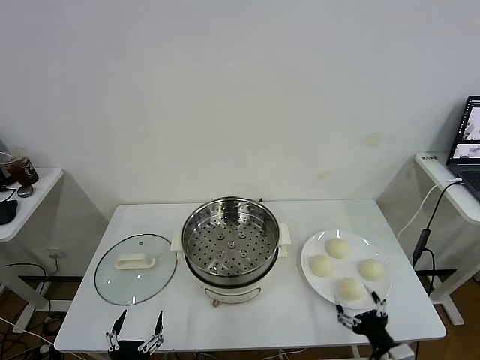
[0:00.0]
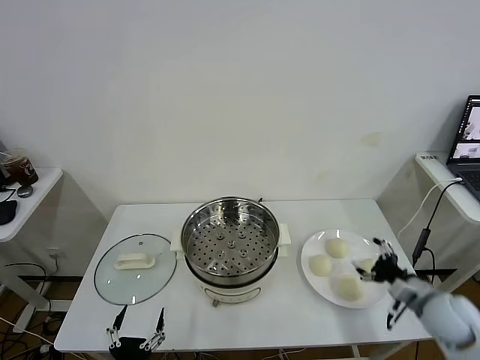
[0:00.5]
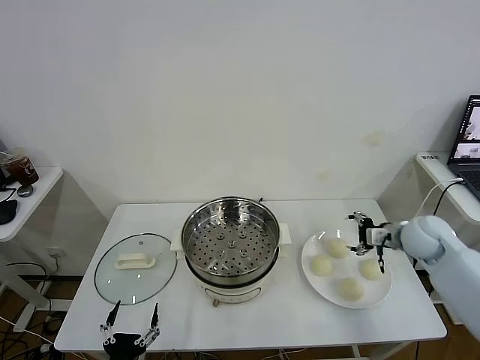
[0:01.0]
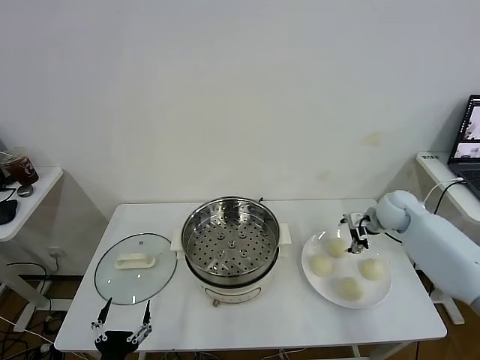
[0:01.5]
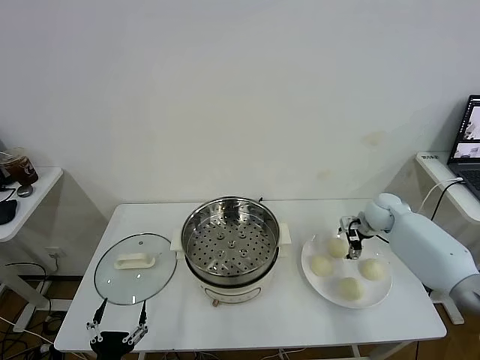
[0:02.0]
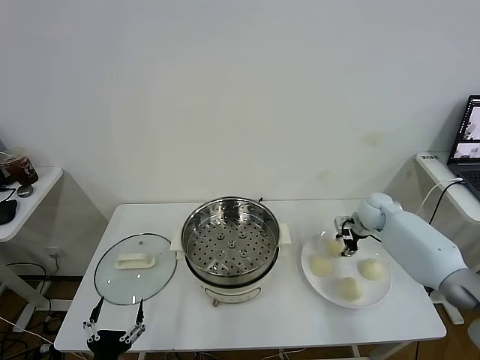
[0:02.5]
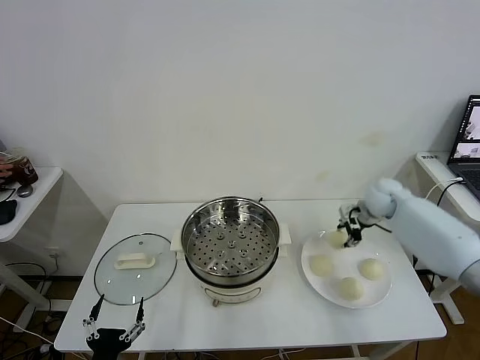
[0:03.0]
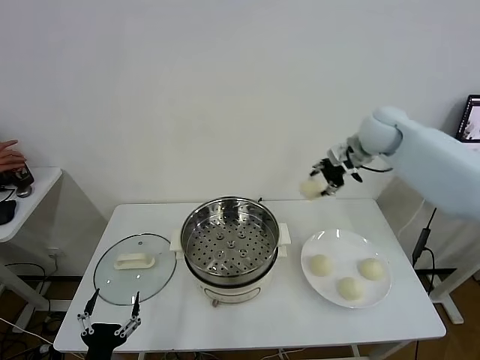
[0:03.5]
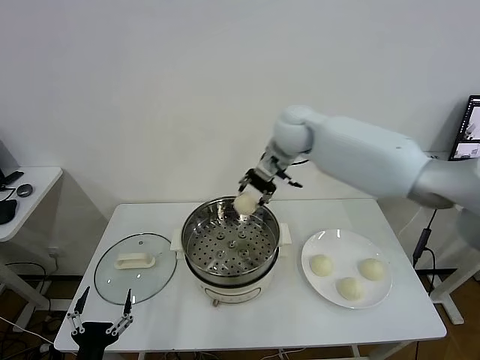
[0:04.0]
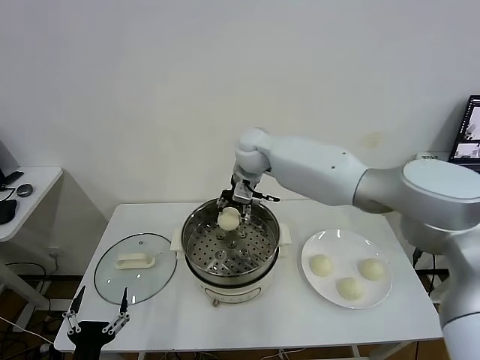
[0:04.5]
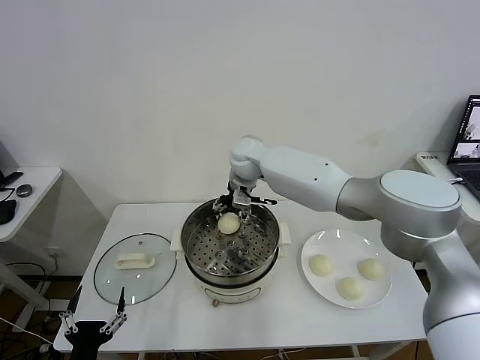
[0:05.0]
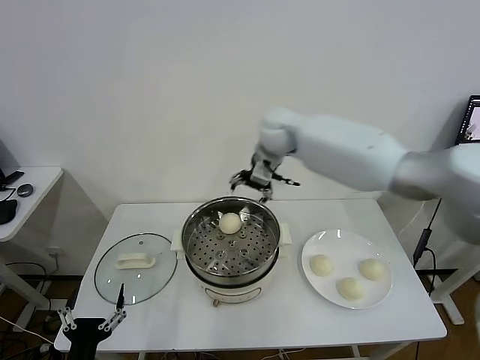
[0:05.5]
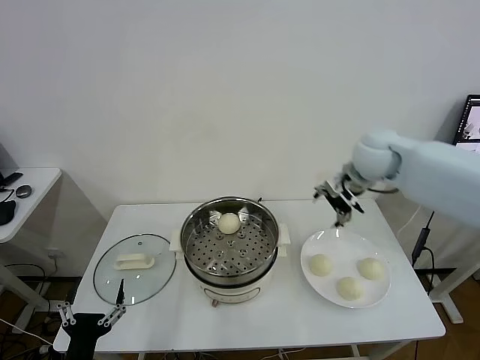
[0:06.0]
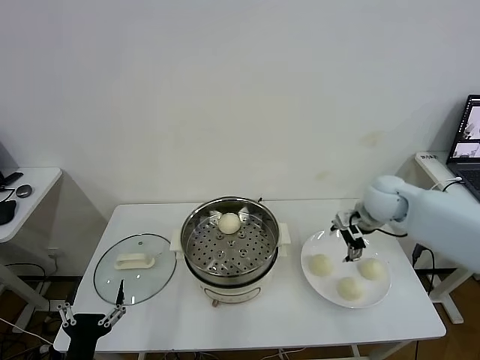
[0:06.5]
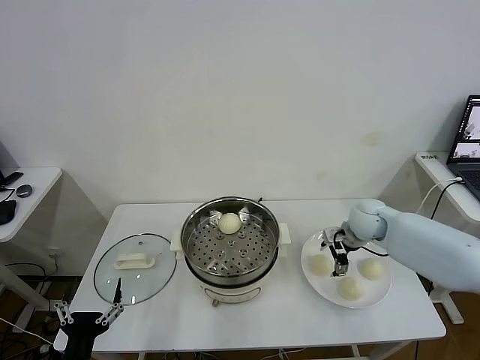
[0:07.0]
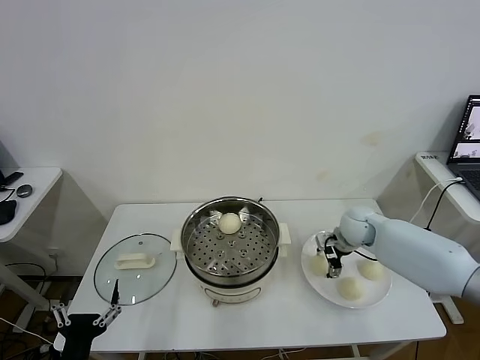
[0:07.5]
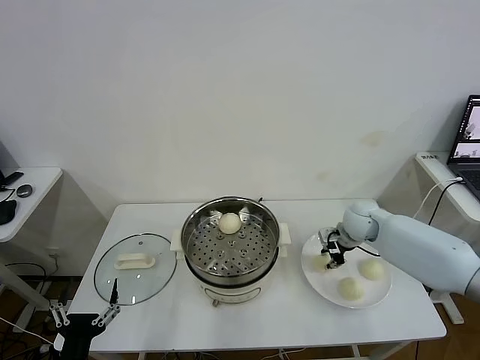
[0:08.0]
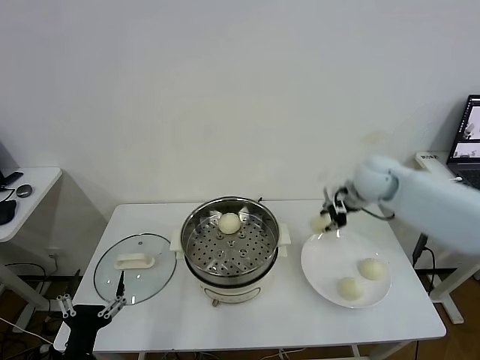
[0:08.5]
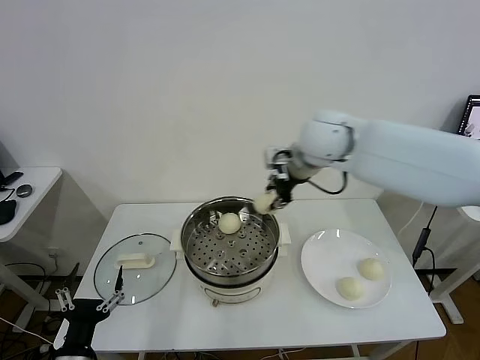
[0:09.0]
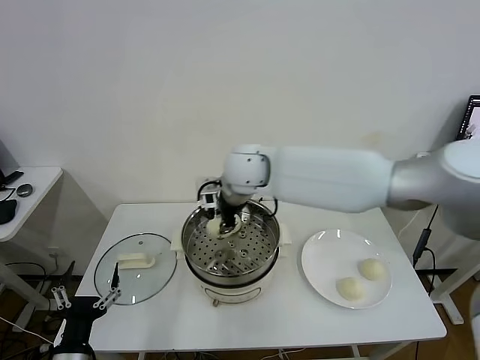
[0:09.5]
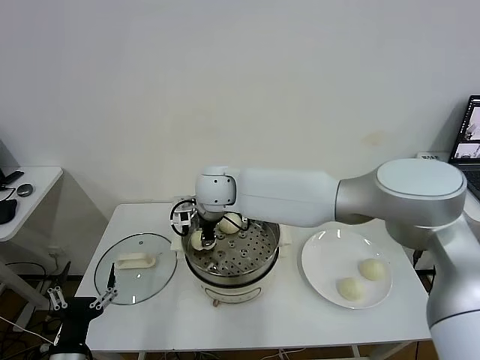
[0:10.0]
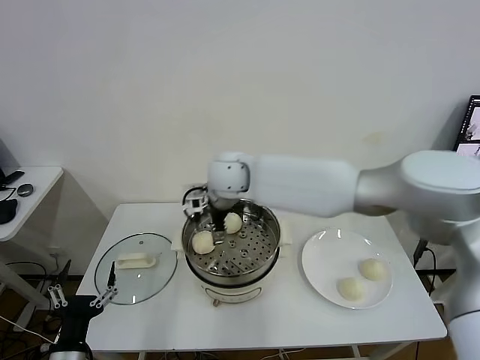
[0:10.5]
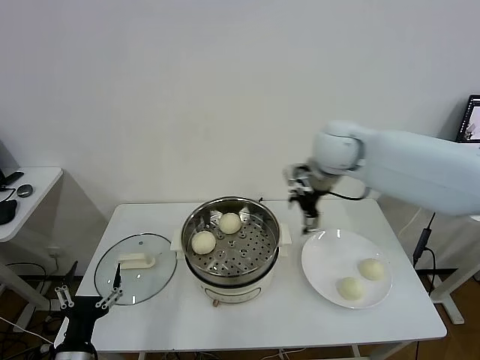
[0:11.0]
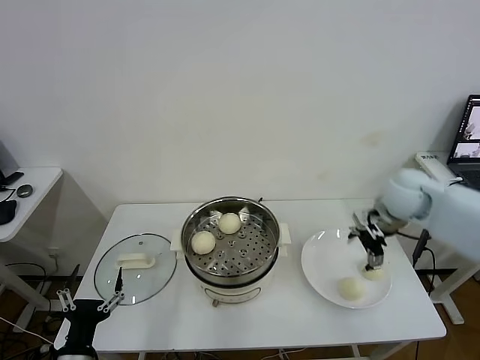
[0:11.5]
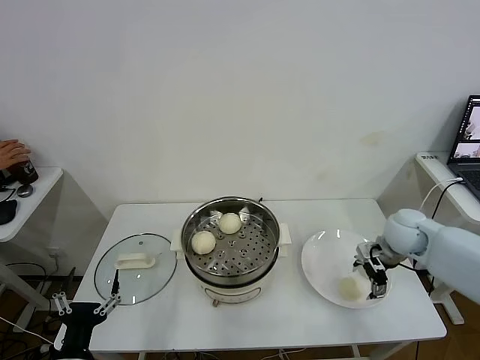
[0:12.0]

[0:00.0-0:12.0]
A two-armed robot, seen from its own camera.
Task of the whole recording: take steamed baozi put them in steamer.
Step, 0:00.0 to 0:02.0: Grasp the baozi in the plate with right gripper.
Step, 0:02.5 to 0:05.0: Place the baozi on the steamer with right gripper.
Step, 0:05.5 to 0:07.5: Grasp the baozi in the plate with right gripper.
Step, 0:08.0 to 0:10.5: Place the baozi on the steamer with right gripper.
0:02.0 to 0:04.0: The right gripper heads to the left and upward, covering about 35 cm, and closes.
0:04.0 to 0:06.0: The right gripper heads to the right, covering some 20 cm, and opens its fingers.
0:06.0 to 0:08.0: The right gripper is displaced downward by roughly 15 cm, and closes its fingers.
0:08.0 to 0:10.0: The right gripper shifts approximately 35 cm to the left.
0:10.0 to 0:12.0: The right gripper moves to the right, roughly 40 cm, and opens its fingers.

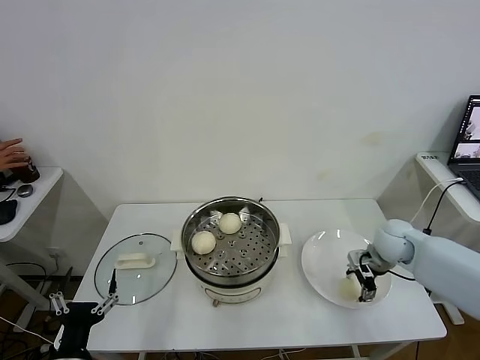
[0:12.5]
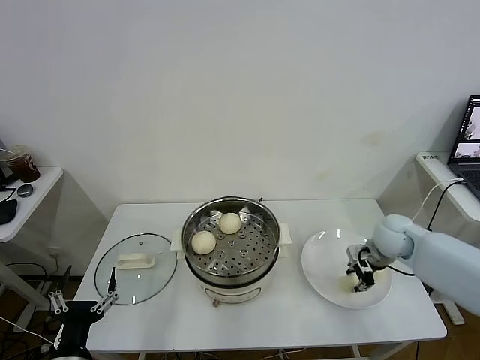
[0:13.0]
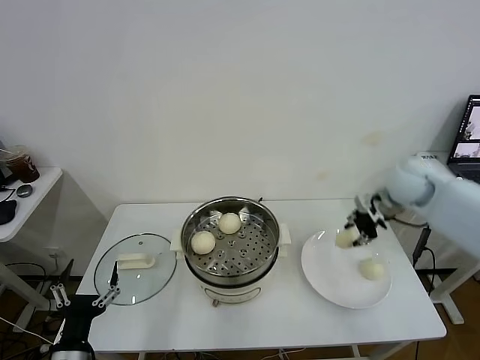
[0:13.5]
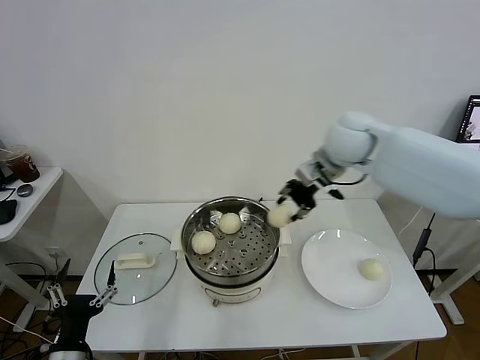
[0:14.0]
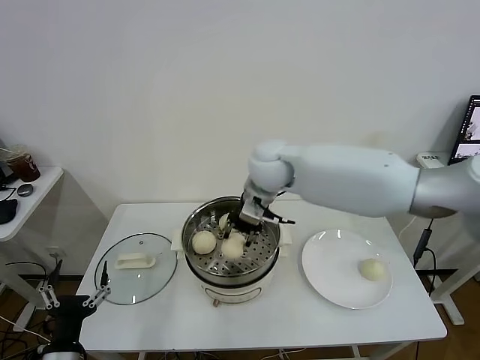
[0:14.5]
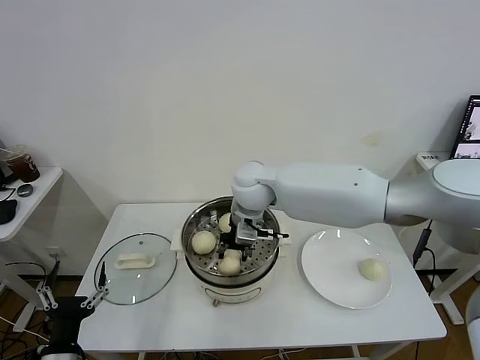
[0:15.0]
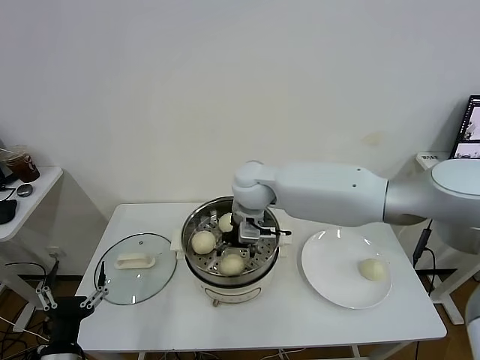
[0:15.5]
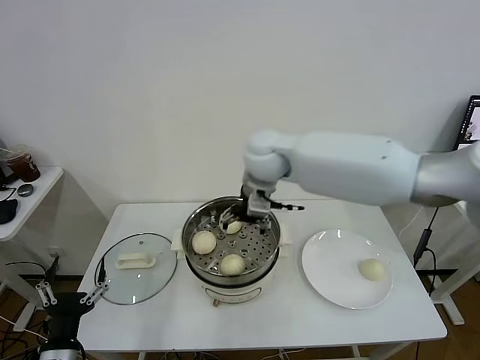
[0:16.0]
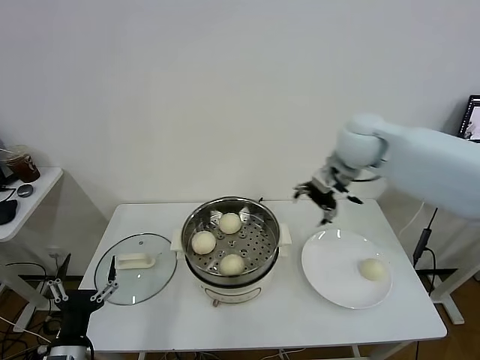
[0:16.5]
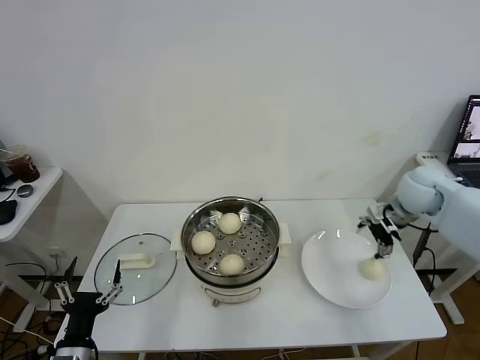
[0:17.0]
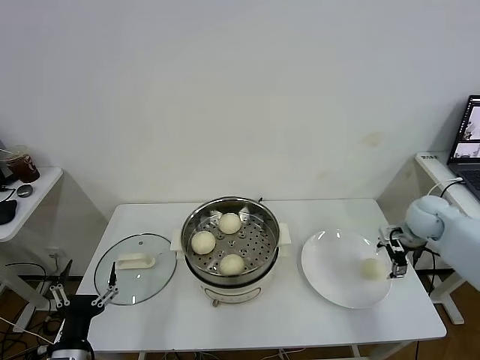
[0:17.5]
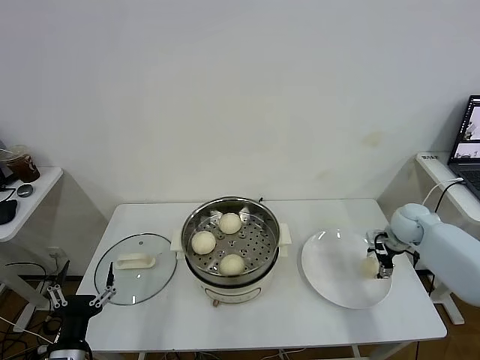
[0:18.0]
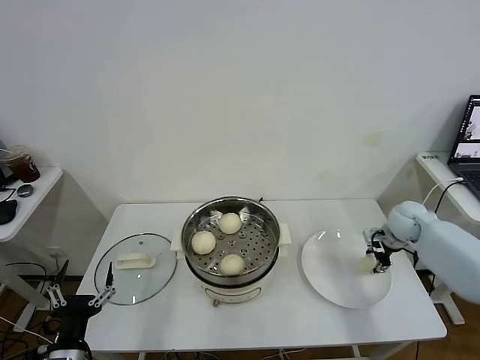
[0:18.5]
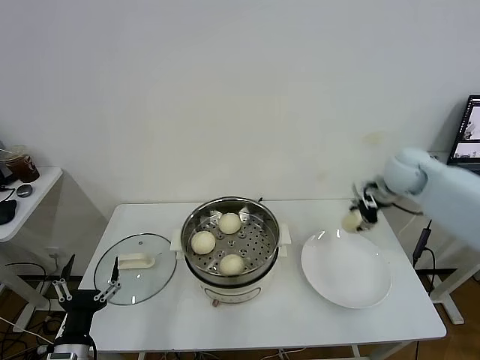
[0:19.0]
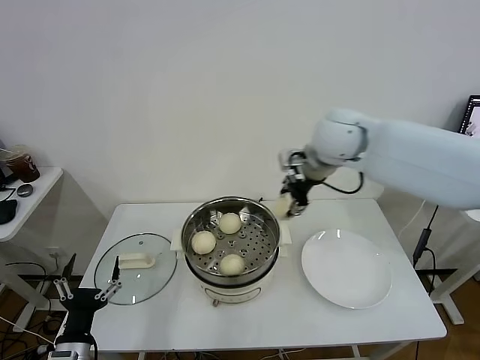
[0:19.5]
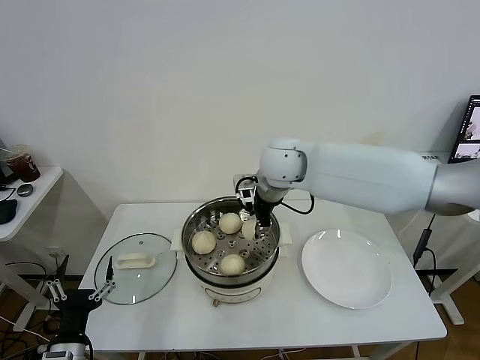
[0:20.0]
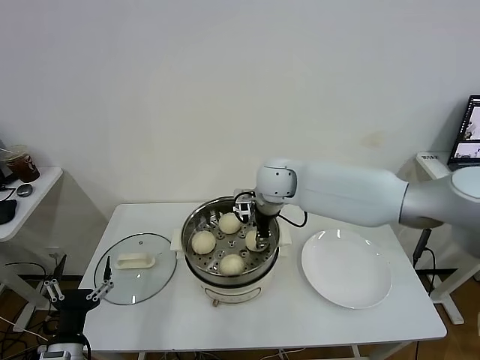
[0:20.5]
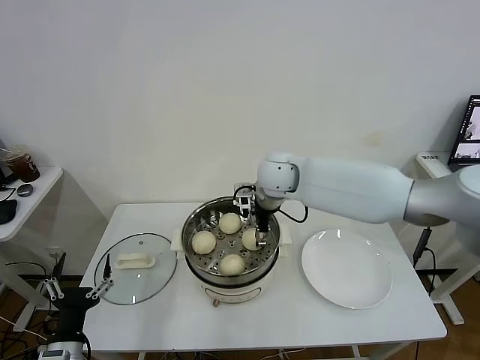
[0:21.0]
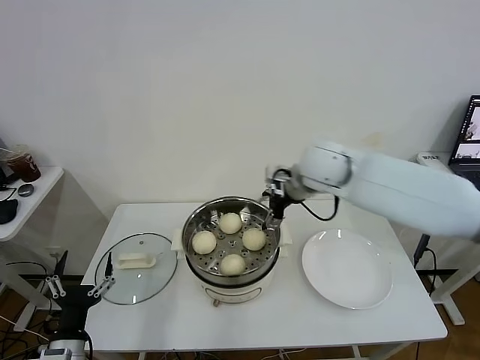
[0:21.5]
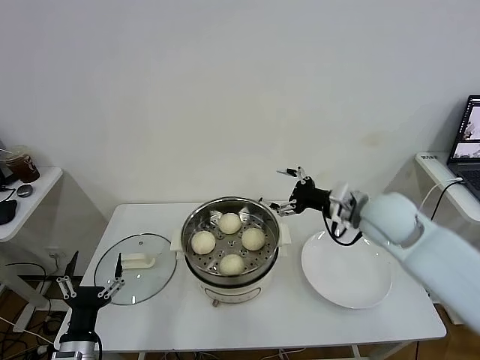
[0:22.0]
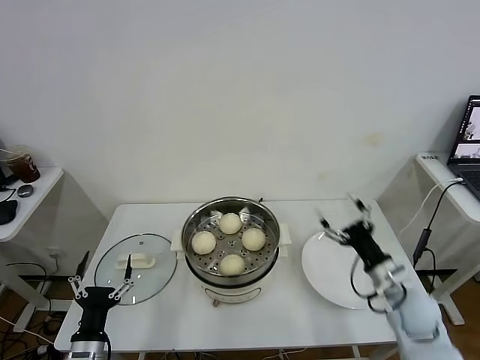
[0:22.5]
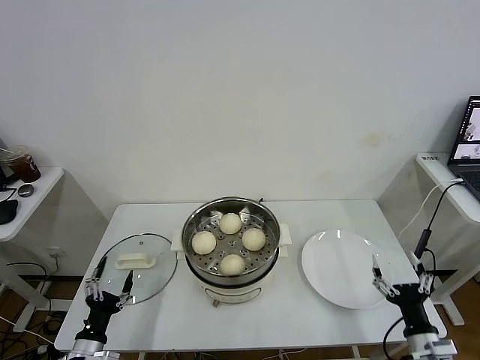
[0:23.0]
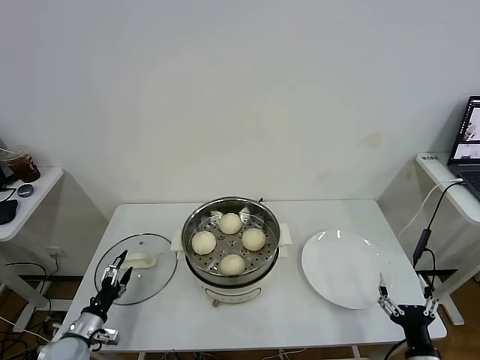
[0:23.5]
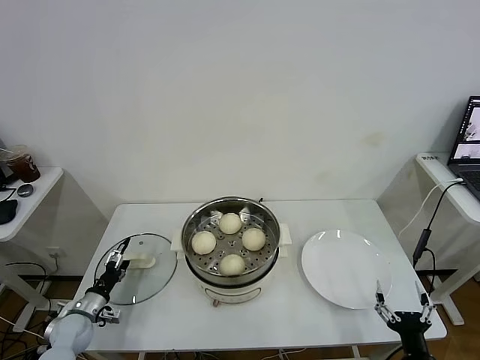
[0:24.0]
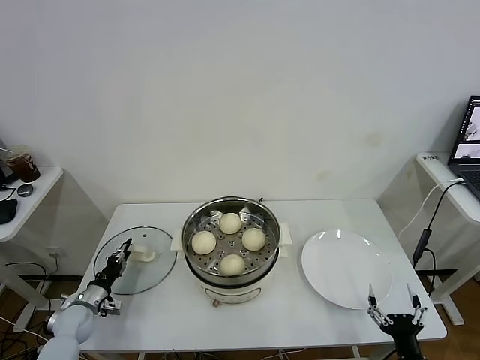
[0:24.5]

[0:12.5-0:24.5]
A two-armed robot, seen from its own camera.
Task of the whole recording: take steamed baozi put them in steamer.
Step, 0:13.0 to 0:15.5: Place the baozi on the steamer with right gripper.
Step, 0:16.0 to 0:18.0: Grasp the baozi in the plate with right gripper.
Step, 0:18.5 to 0:21.0: Place the baozi on the steamer with right gripper.
0:12.5 to 0:14.5: The right gripper is displaced to the left and upward by about 35 cm, and closes up.
0:14.5 to 0:16.5: The right gripper heads to the right, covering about 20 cm, and opens its fingers.
0:16.5 to 0:18.5: The right gripper travels downward and to the right by some 30 cm, and closes up.
0:18.5 to 0:20.5: The right gripper shifts some 35 cm to the left.
0:20.5 to 0:22.5: The right gripper heads to the right, backward and downward, covering approximately 40 cm, and opens its fingers.
0:22.5 to 0:24.5: The right gripper heads backward and downward, covering about 20 cm, while the left gripper shifts approximately 25 cm forward, to the left and downward, and closes.

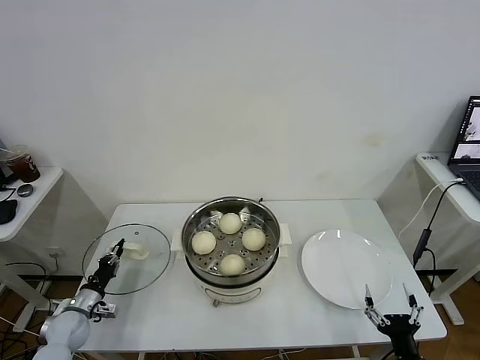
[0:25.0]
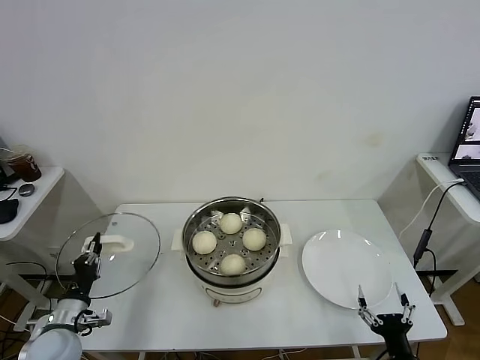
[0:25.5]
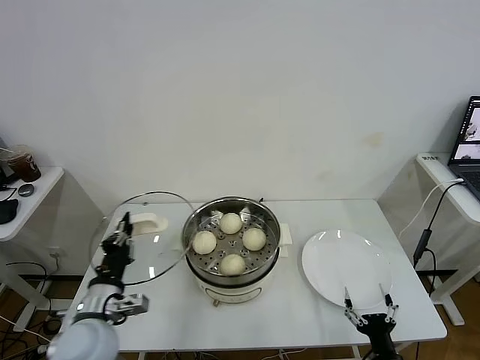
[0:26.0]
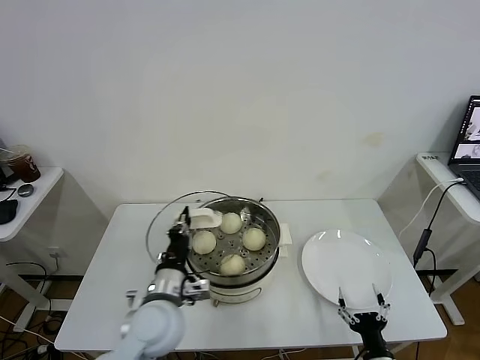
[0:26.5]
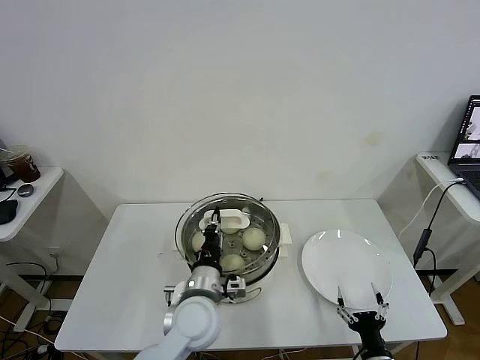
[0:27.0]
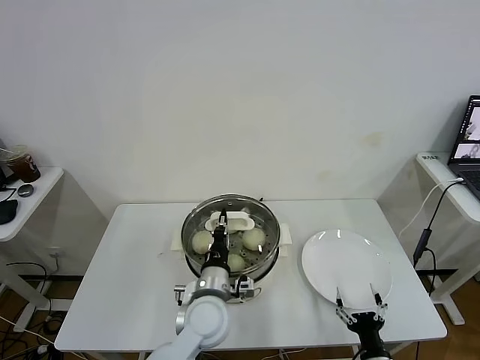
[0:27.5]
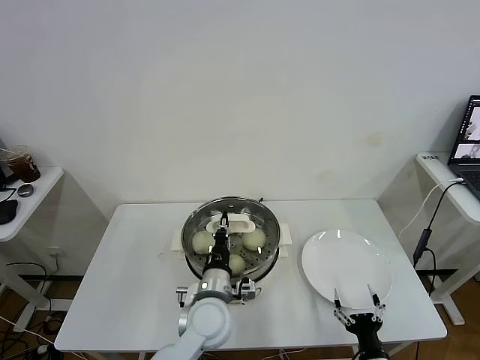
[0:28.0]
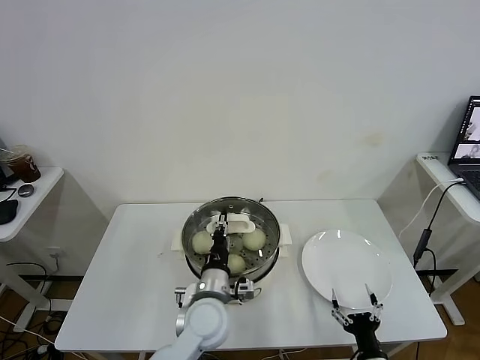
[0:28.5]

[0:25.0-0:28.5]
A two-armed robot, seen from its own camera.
Task of the whole recording: take steamed baozi put them in steamer.
0:25.0 to 0:27.0: The right gripper ends up some 5 cm from where it was. Meanwhile the left gripper shifts some 40 cm to the right and upward.
0:27.0 to 0:28.5: There are only small adjustments of the grippers.
